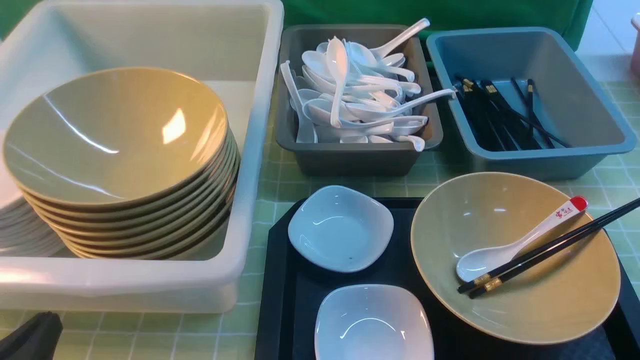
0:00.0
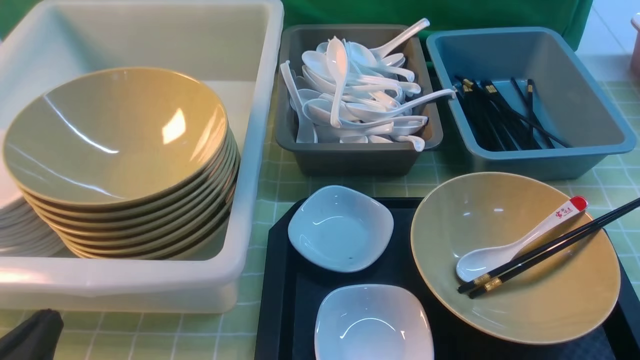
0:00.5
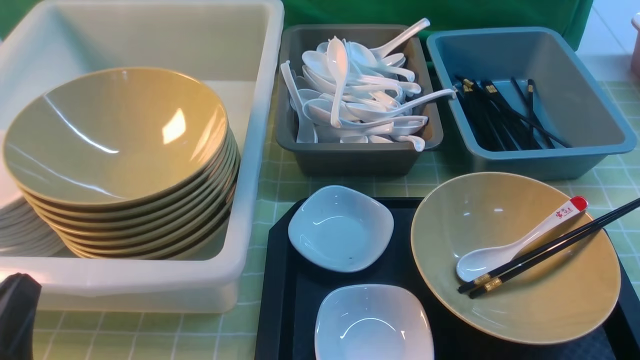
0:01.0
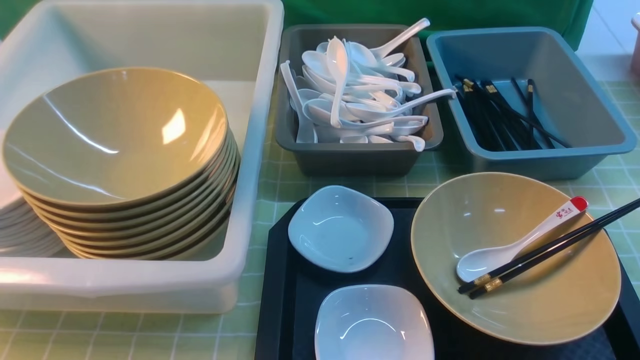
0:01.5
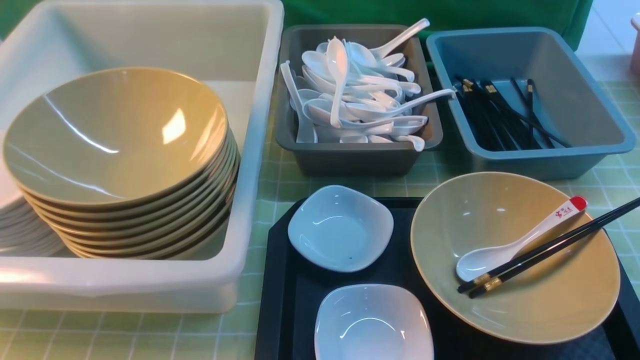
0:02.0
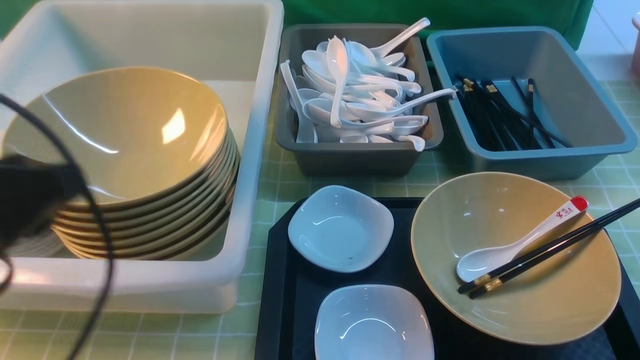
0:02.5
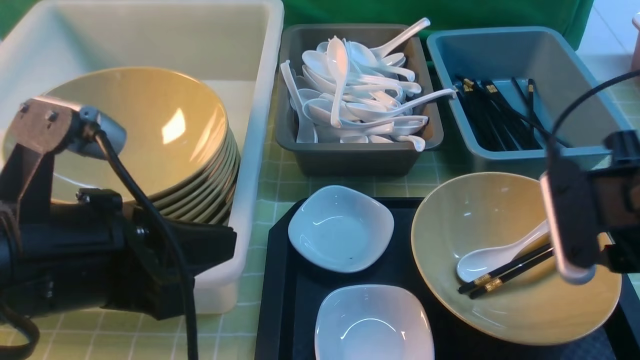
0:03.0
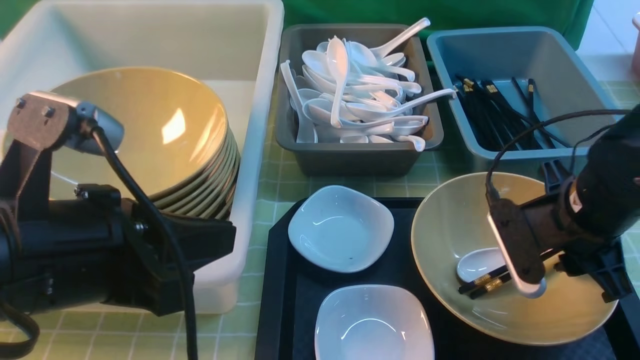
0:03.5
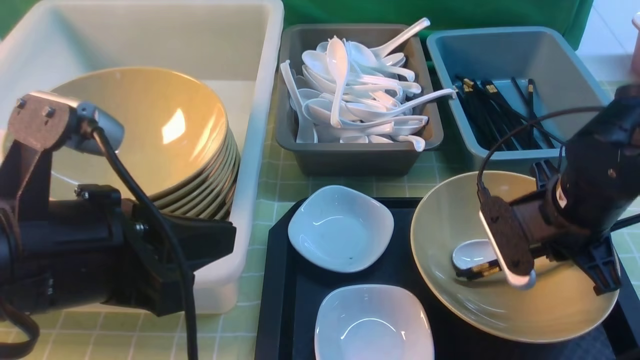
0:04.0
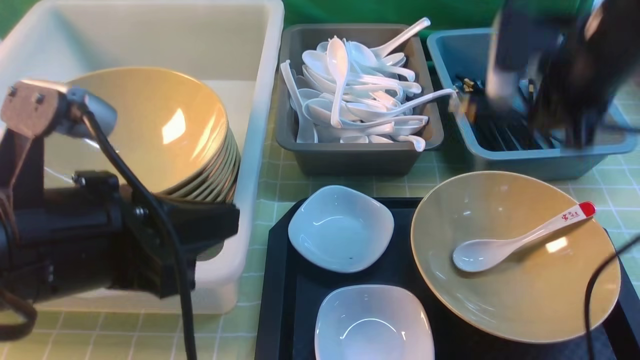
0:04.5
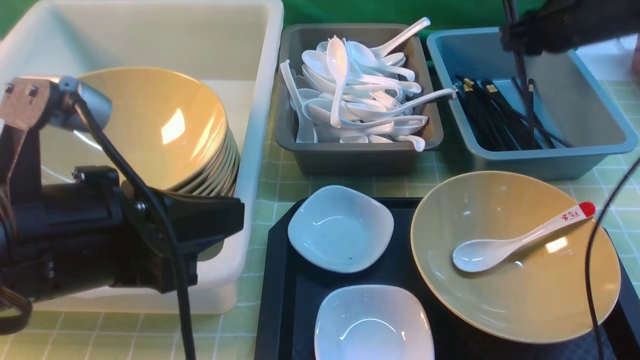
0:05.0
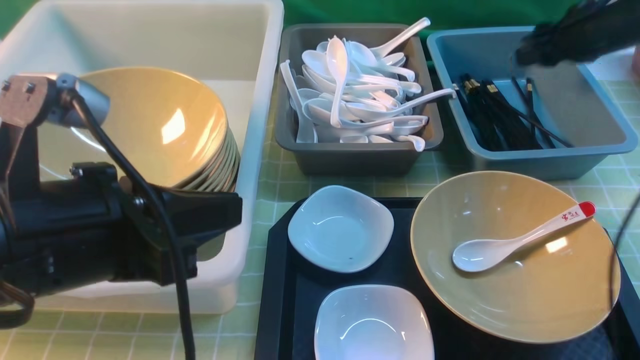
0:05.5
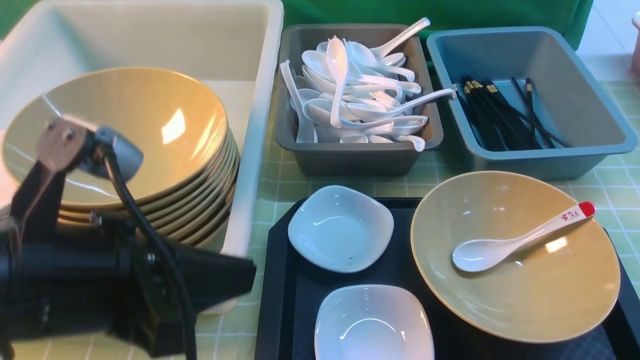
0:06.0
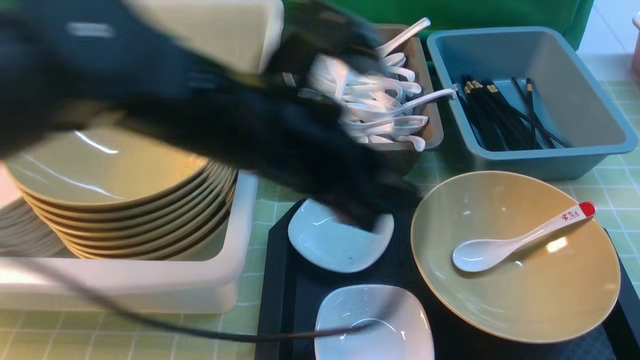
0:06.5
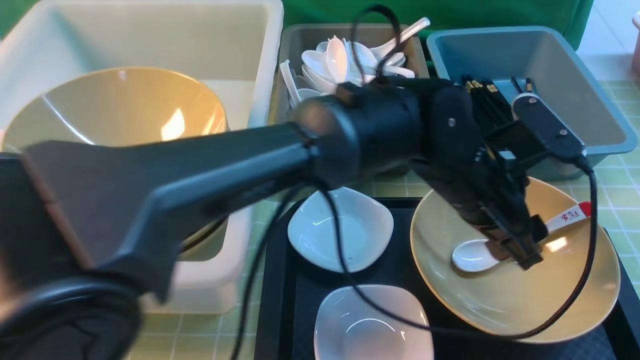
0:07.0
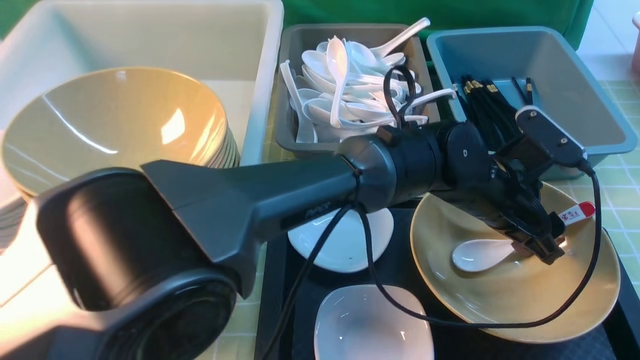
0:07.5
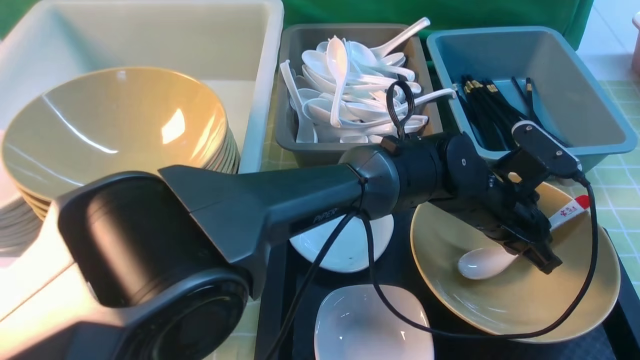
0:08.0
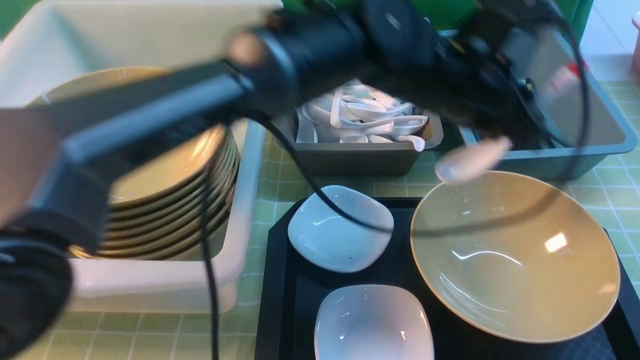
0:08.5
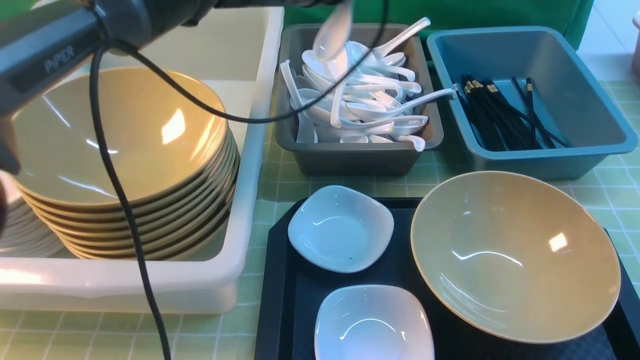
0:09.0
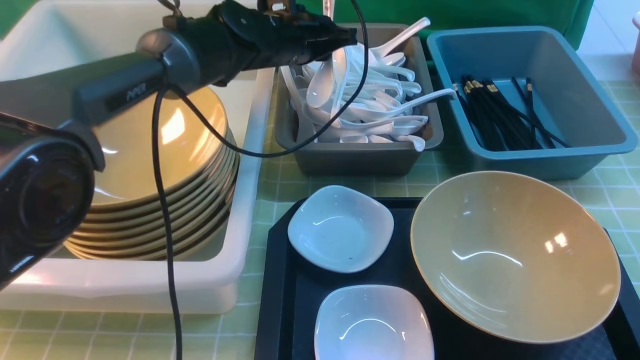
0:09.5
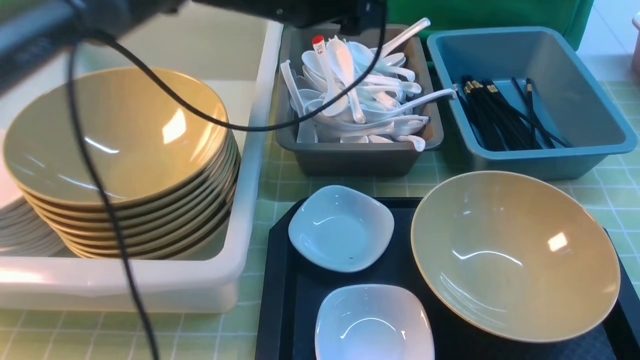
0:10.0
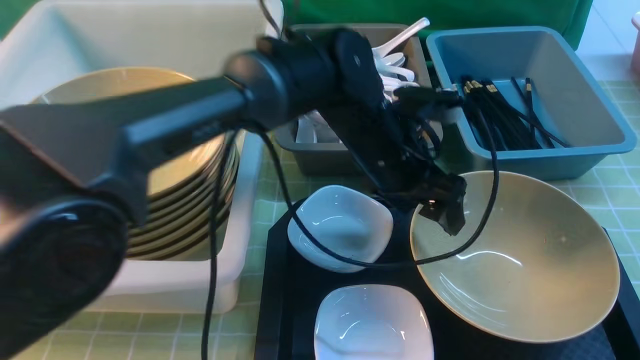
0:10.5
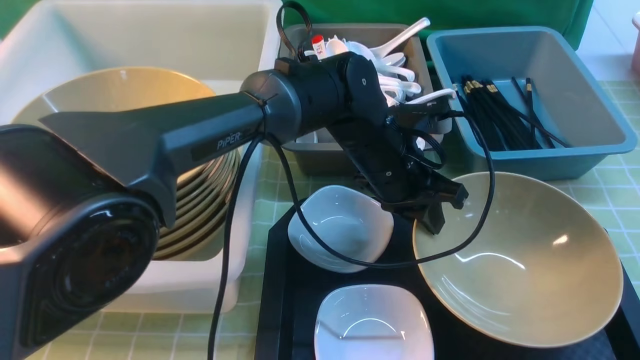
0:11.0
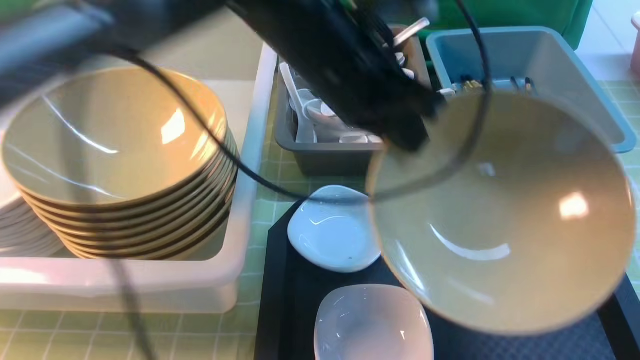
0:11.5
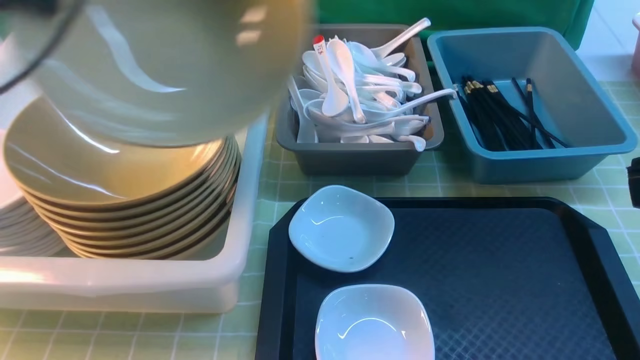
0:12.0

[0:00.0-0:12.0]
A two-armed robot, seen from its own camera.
Task of the whole recording: on green table put chopsticks spoon bowls plates into blue grey white boxes.
Step, 0:00.0 to 0:04.0: use the right arm to grab the chopsticks.
Step, 0:04.5 to 0:05.5: use the right arm to put the chopsticks into the small storage box on the right.
Step, 0:06.0 to 0:08.0: use the left arm to grab the soup spoon in the middle.
Step, 0:08.5 to 0:09.5: use the left arm to put the soup spoon into the small storage box in the middle.
Step, 0:10.0 to 0:11.0: use the left arm to grab the yellow noodle bowl on the left.
0:00.0 to 0:02.0: The left gripper is displaced upward by approximately 20 cm.
0:02.0 to 0:04.0: The left gripper moves to the right, forward and downward, roughly 15 cm. The right gripper moves forward, downward and to the left, roughly 30 cm.
0:04.0 to 0:06.0: The right gripper heads upward, covering roughly 25 cm, goes forward and returns, some 20 cm each way, and opens.
0:06.0 to 0:08.0: The left gripper travels to the right, forward and downward by about 40 cm, and opens, then closes again. The right gripper heads backward and downward, covering approximately 10 cm, and closes its fingers.
0:08.0 to 0:10.0: The left gripper is displaced to the left, upward and forward by about 25 cm, and opens.
0:10.0 to 0:12.0: The left gripper shifts some 30 cm to the left, backward and upward, and closes its fingers.

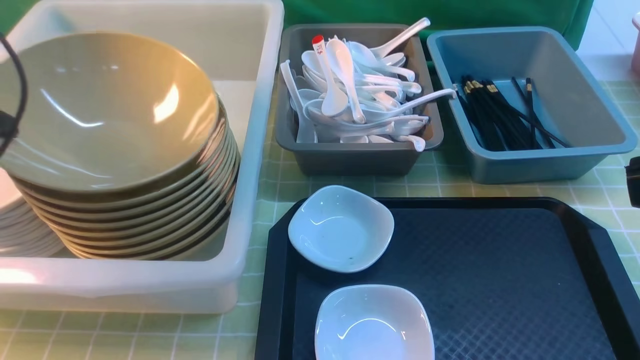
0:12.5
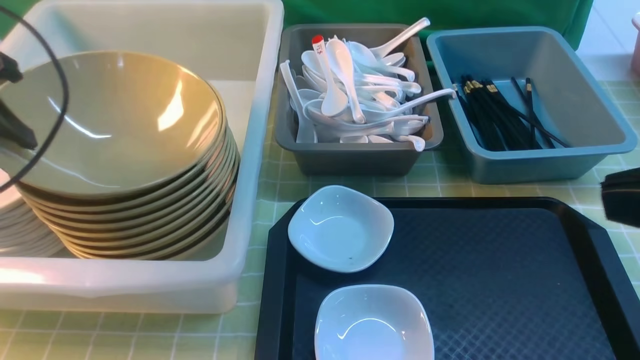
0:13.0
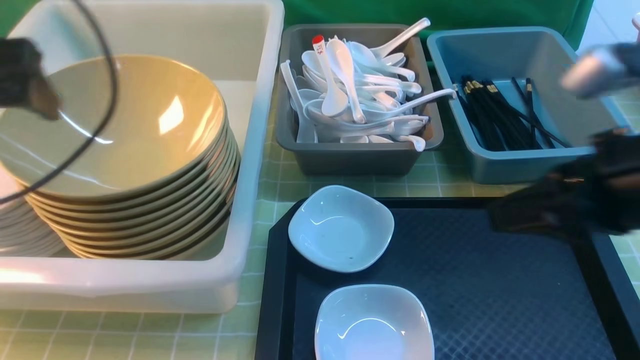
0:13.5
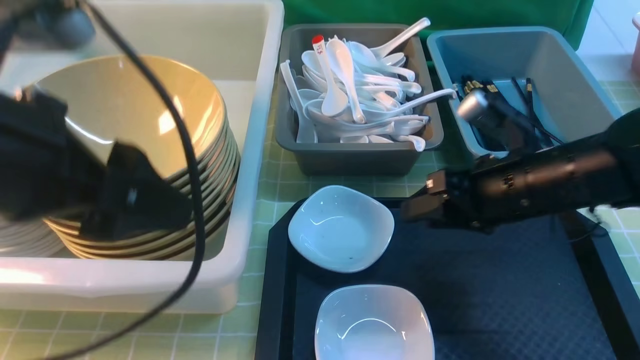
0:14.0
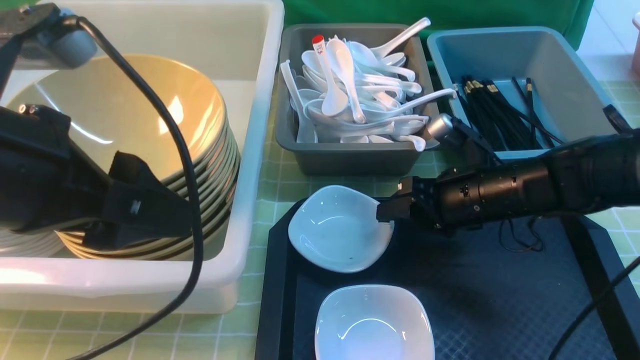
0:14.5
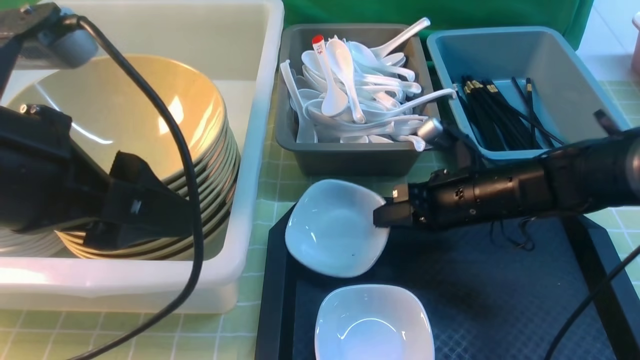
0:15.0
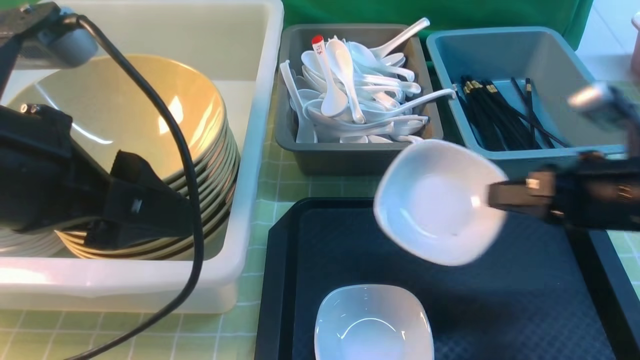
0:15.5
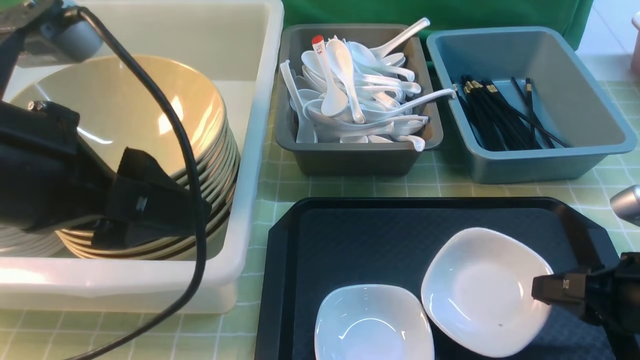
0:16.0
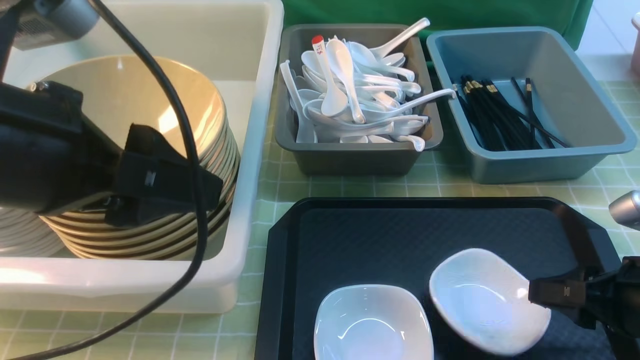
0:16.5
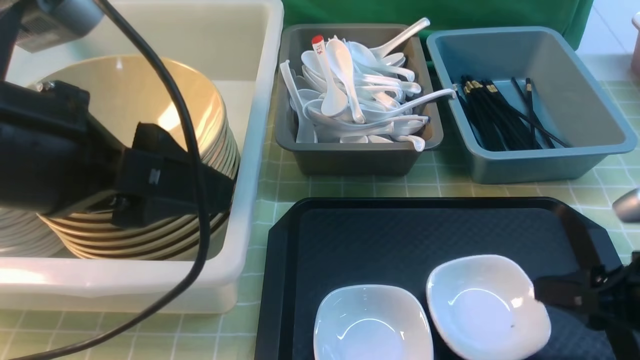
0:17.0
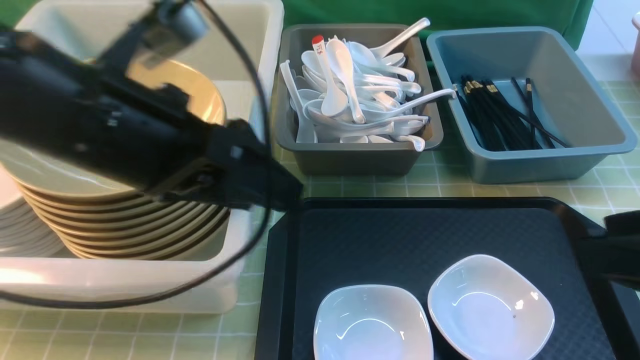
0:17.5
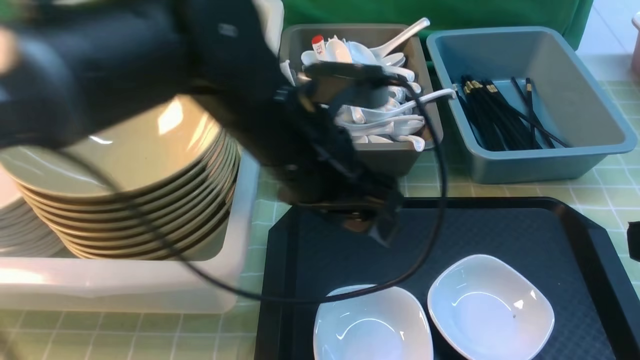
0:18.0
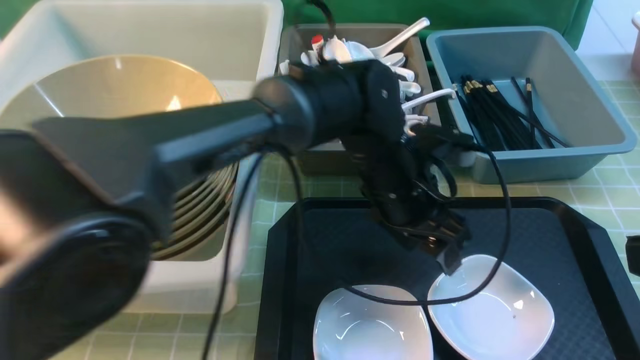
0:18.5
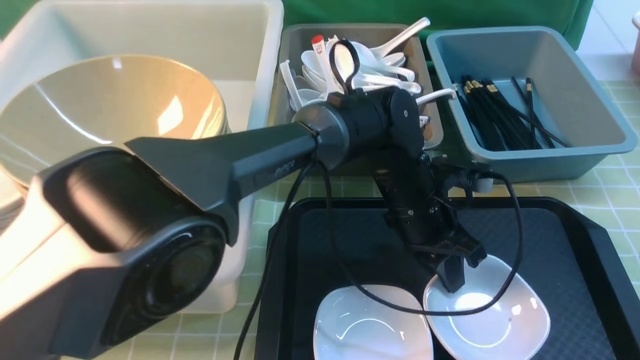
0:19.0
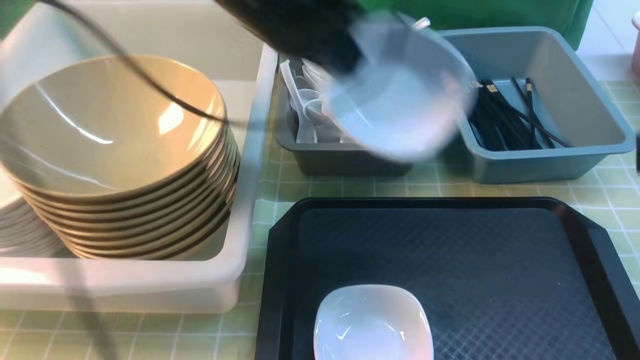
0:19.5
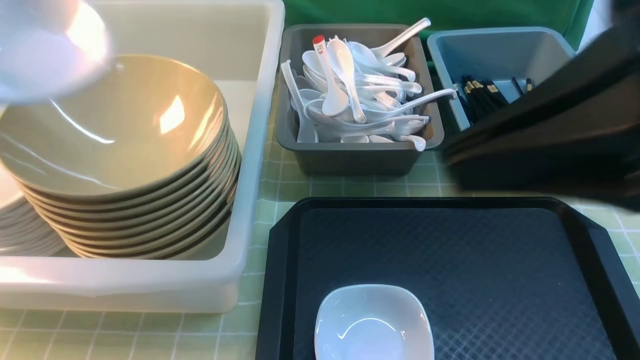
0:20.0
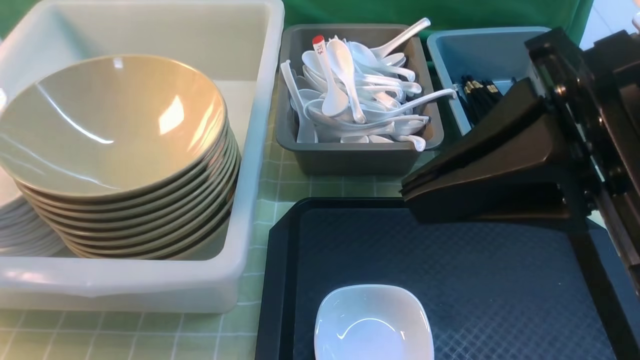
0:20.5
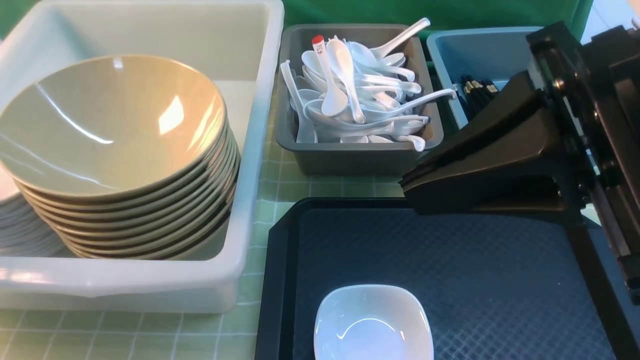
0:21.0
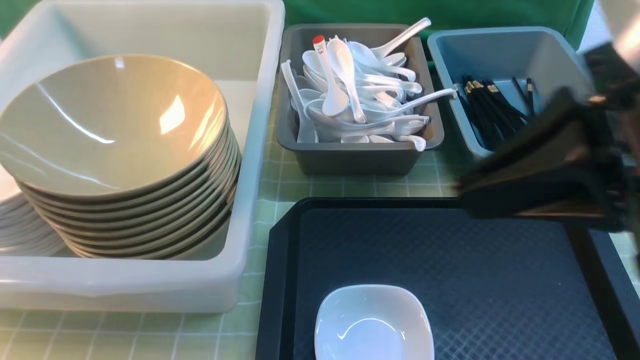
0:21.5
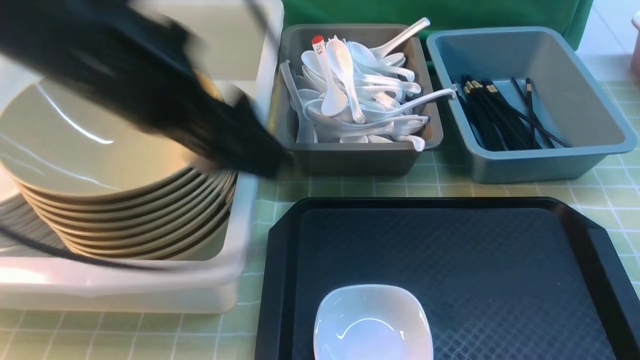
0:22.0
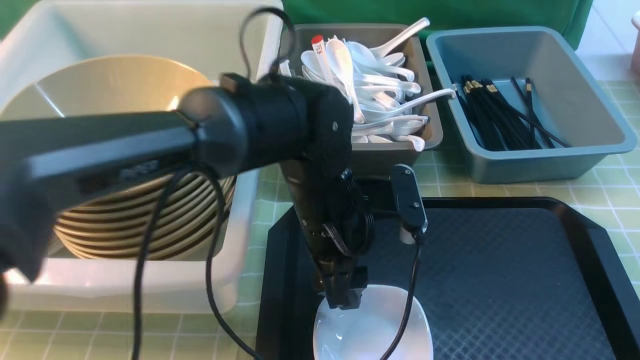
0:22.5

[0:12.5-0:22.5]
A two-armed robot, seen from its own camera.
Task of the whole recording: on green table put chopsticks spoon bowls plates into blue grey white boxes.
Step, 0:13.5 to 0:15.0: use the right arm to grab the plate.
Step, 0:15.5 to 0:16.5: use the right arm to put the plate on the tray.
Step, 0:17.0 to 0:19.0: use the left arm to grab the plate.
Step, 0:19.5 to 0:21.0: use the left arm to put the plate into the large storage box on the left.
0:12.5 to 0:14.5: The left gripper shifts about 20 cm to the right and backward, and opens up. Meanwhile the right gripper goes roughly 35 cm downward and forward, and opens its fingers.
0:14.5 to 0:16.5: The right gripper heads backward and to the right, covering approximately 20 cm, and closes, then opens again.
0:16.5 to 0:18.5: The right gripper goes approximately 20 cm upward and backward, while the left gripper is displaced to the right, downward and forward by some 35 cm.
0:18.5 to 0:20.5: The right gripper is displaced to the left, forward and upward by about 15 cm, and closes. Meanwhile the left gripper is displaced to the left by approximately 50 cm, and closes its fingers.
0:20.5 to 0:22.5: The right gripper travels backward and to the right by about 10 cm. The left gripper goes some 40 cm to the right, and opens up.
